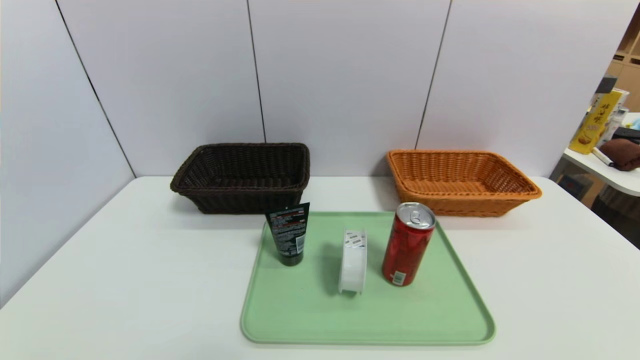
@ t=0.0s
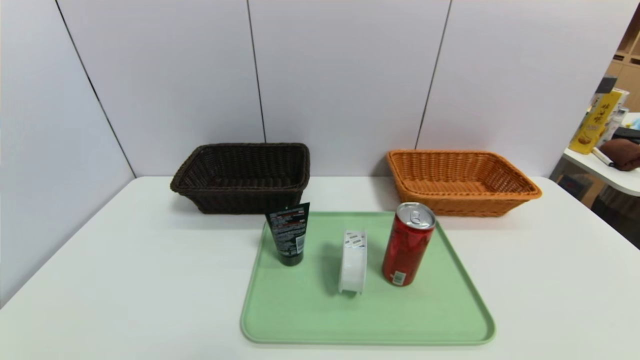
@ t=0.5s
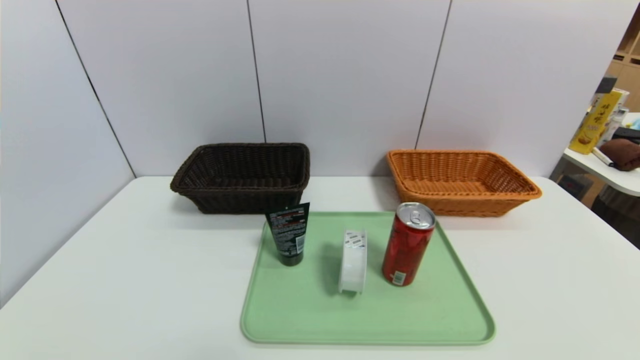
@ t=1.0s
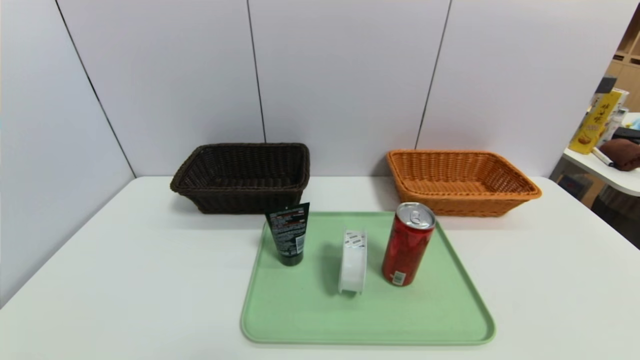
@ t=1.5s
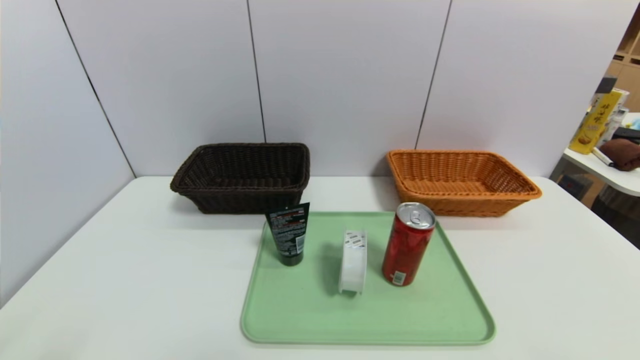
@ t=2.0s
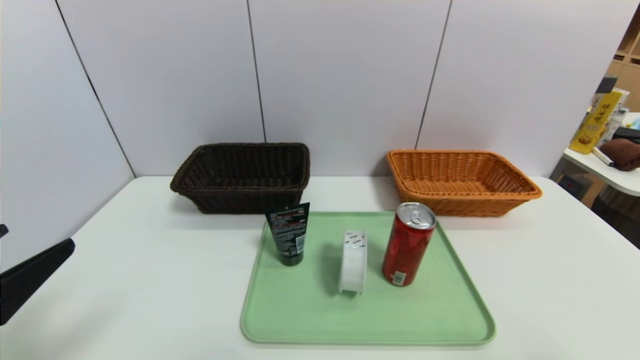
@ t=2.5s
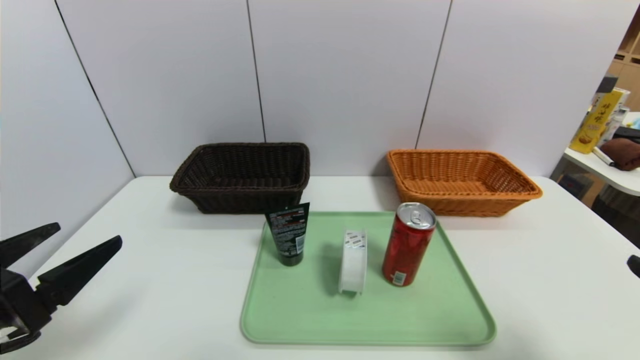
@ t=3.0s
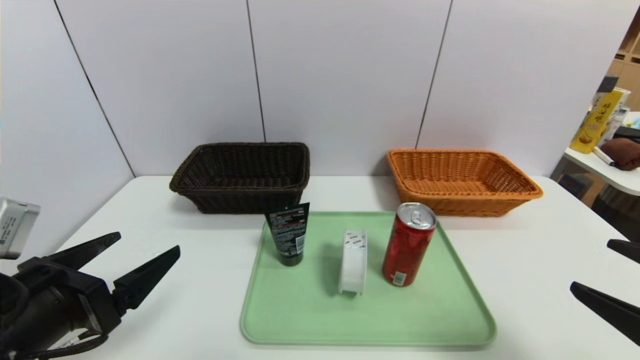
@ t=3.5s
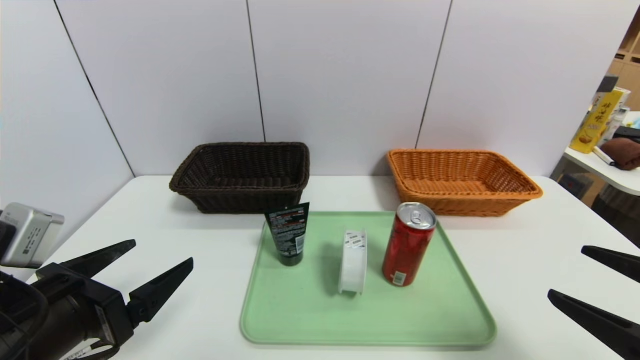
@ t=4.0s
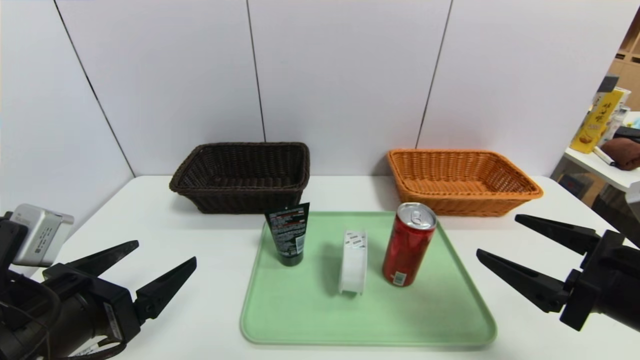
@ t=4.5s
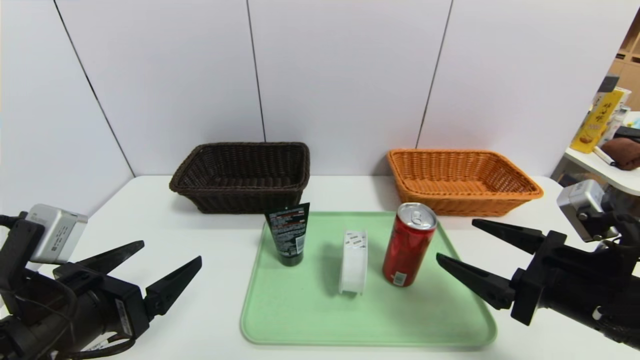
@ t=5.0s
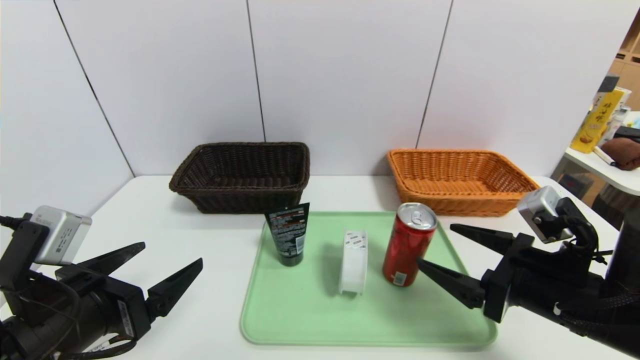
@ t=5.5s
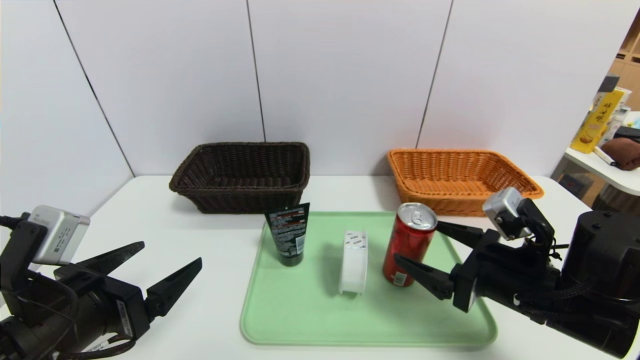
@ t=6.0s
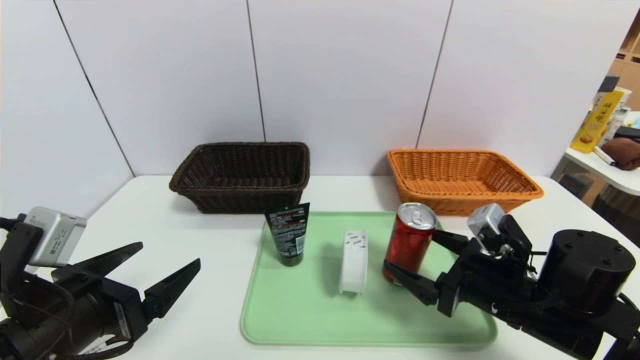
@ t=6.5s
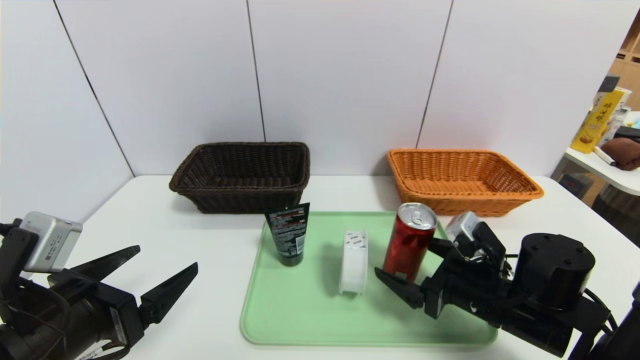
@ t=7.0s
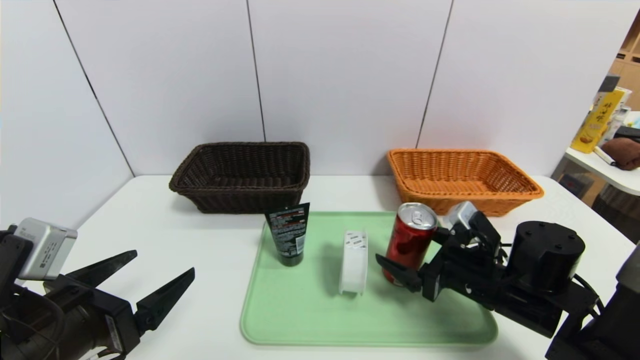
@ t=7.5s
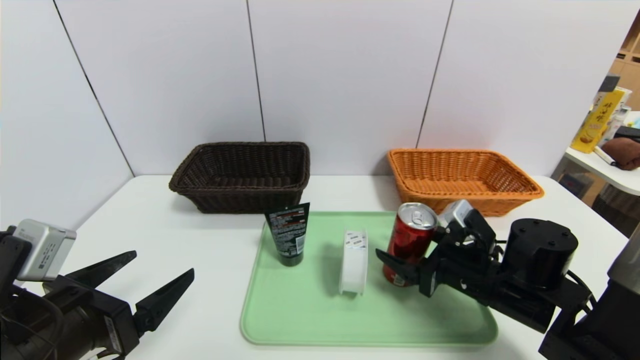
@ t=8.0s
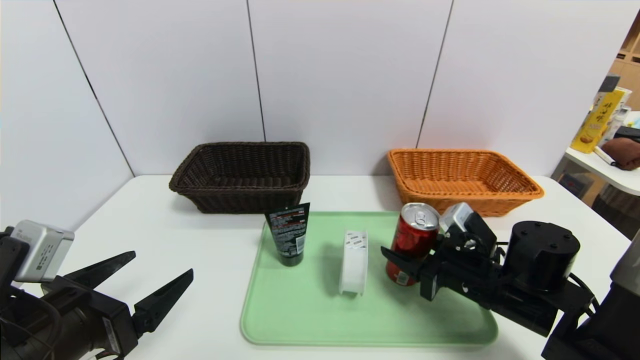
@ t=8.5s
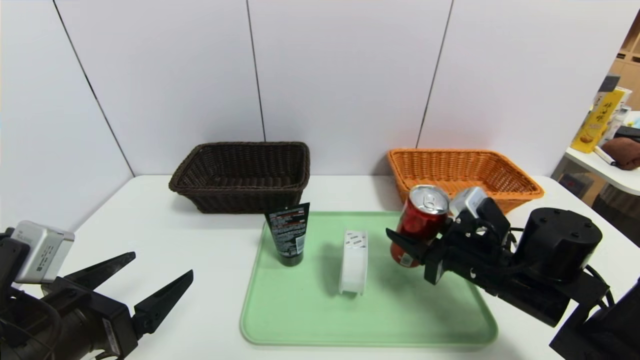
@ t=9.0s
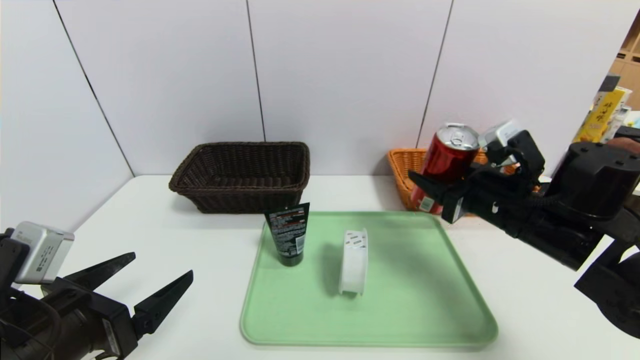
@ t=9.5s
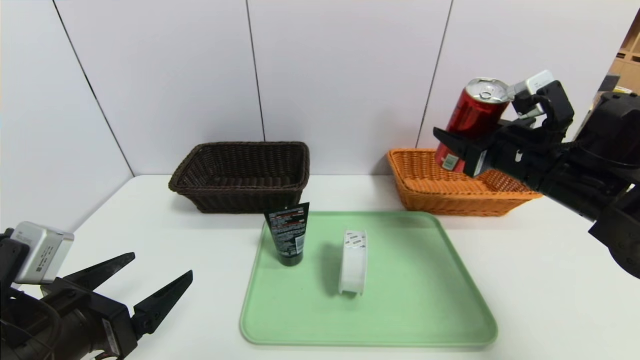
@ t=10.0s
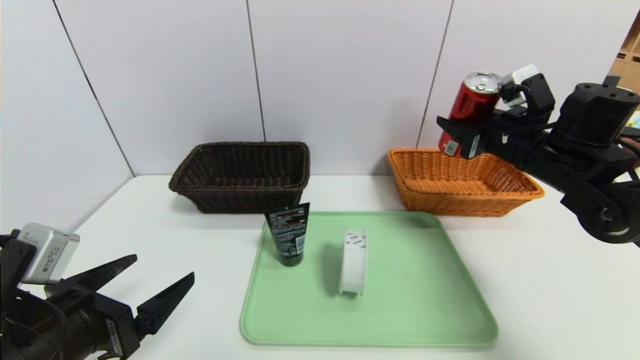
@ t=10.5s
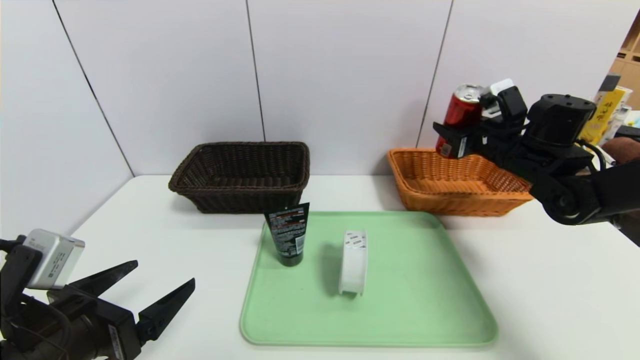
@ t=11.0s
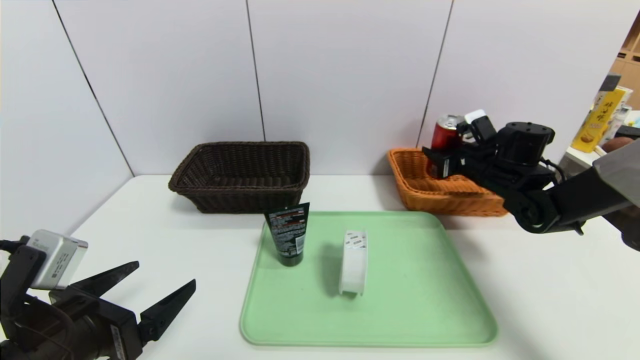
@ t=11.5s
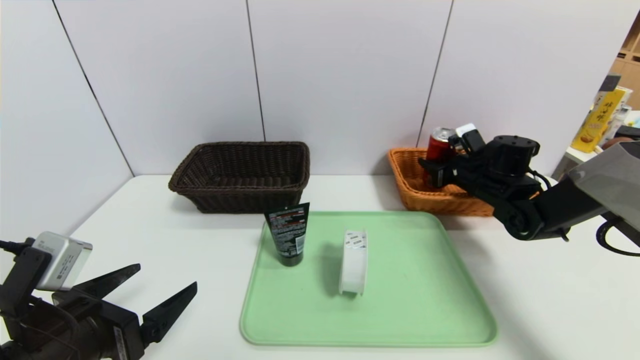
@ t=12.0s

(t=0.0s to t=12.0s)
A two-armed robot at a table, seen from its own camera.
Task of the whole recording: place the food in the right basket with the right gripper, and place the non food items in the left basket with the left gripper.
t=2.0s - t=4.0s: The right gripper is displaced forward by roughly 10 cm; the left gripper goes about 15 cm forward and to the right.
t=4.0s - t=6.0s: The right gripper goes about 15 cm forward, to the left and downward.
t=6.0s - t=8.0s: The right gripper shifts roughly 5 cm forward.
t=8.0s - t=10.0s: The right gripper moves upward, approximately 15 cm, and closes.
t=10.0s - t=12.0s: The right gripper goes some 20 cm forward and downward.

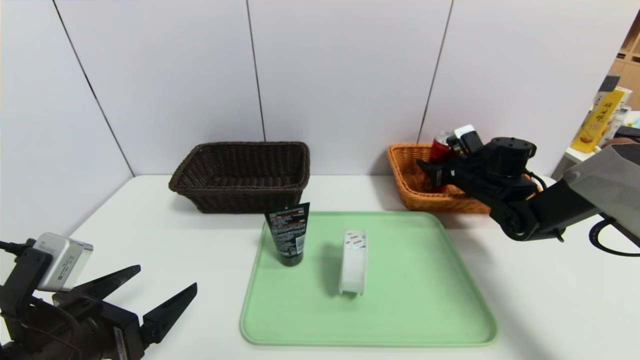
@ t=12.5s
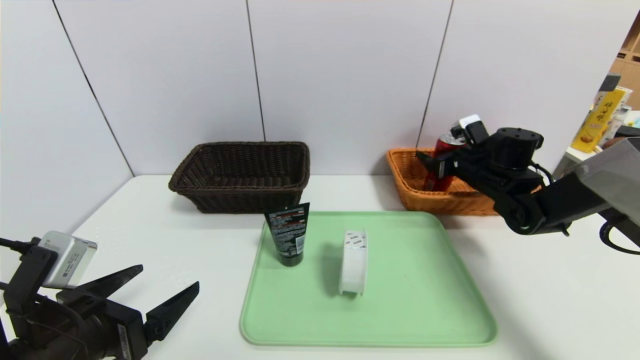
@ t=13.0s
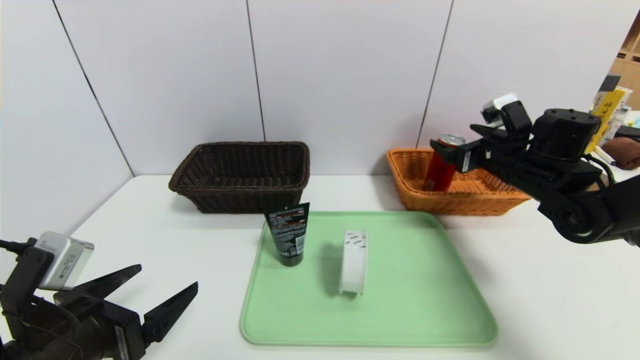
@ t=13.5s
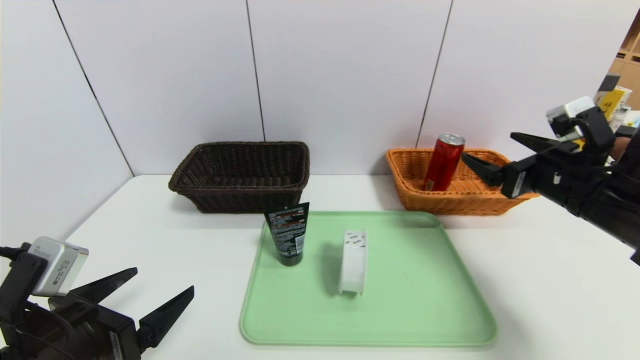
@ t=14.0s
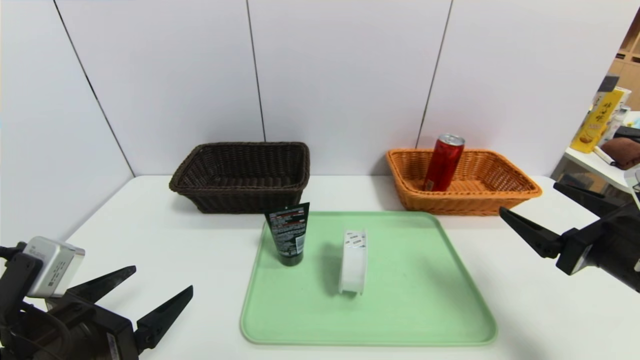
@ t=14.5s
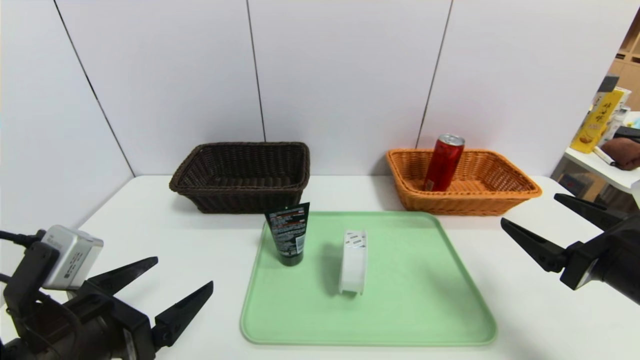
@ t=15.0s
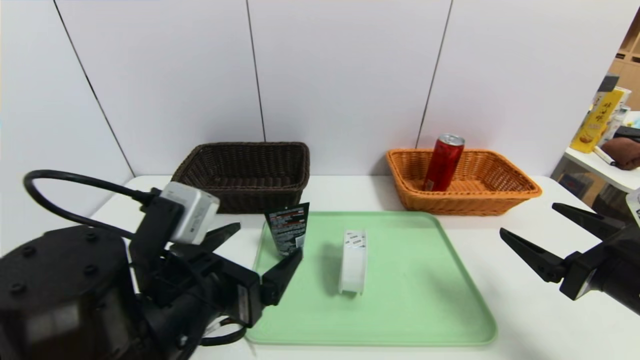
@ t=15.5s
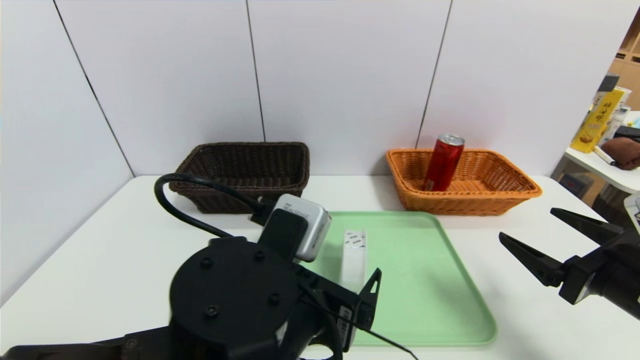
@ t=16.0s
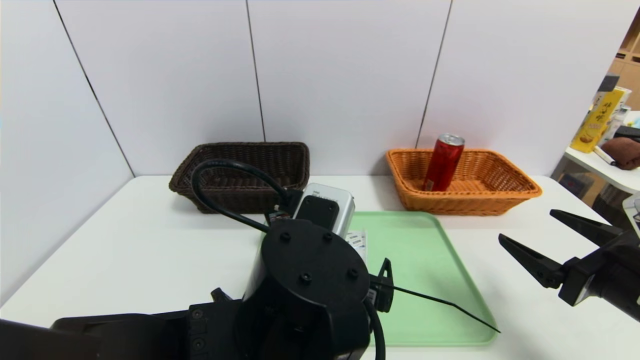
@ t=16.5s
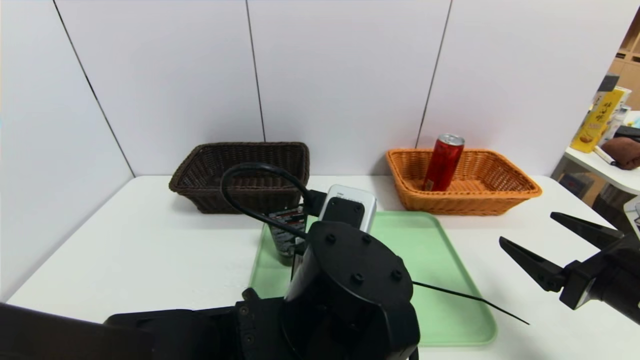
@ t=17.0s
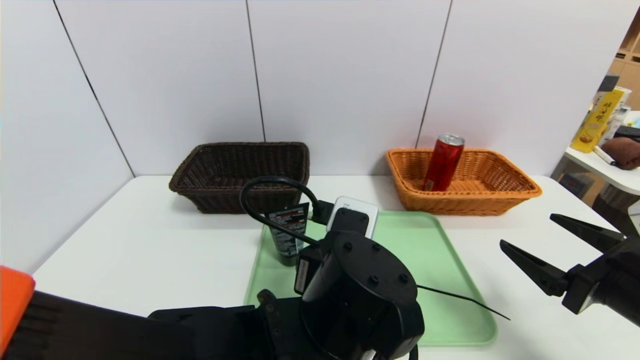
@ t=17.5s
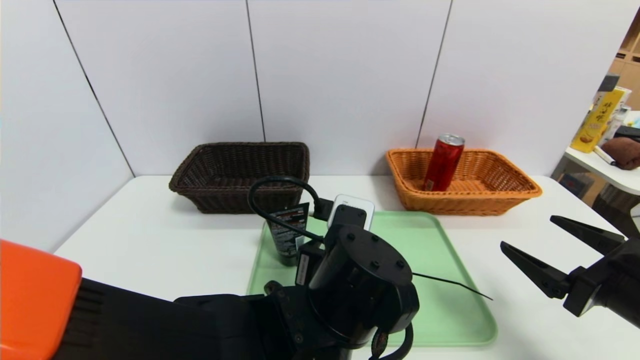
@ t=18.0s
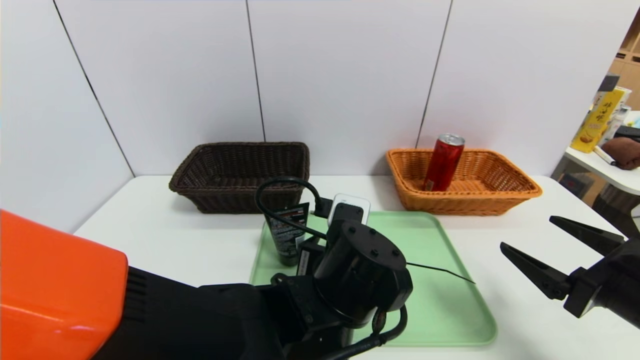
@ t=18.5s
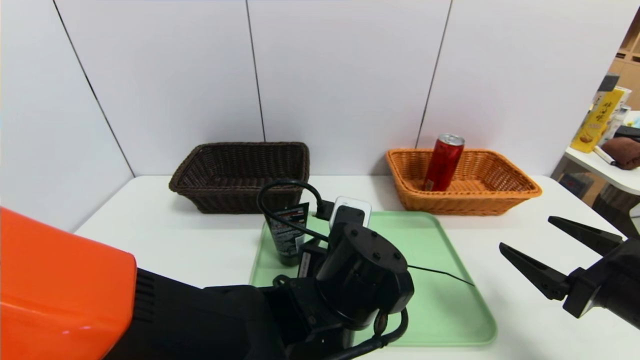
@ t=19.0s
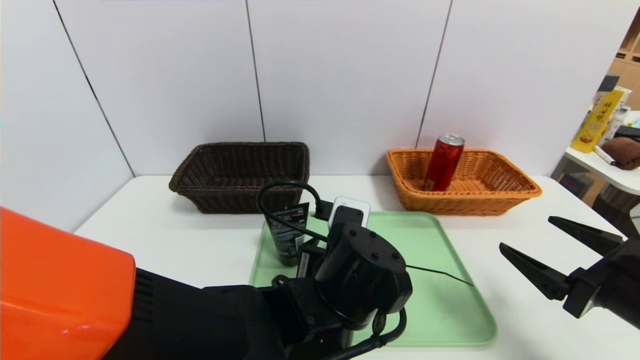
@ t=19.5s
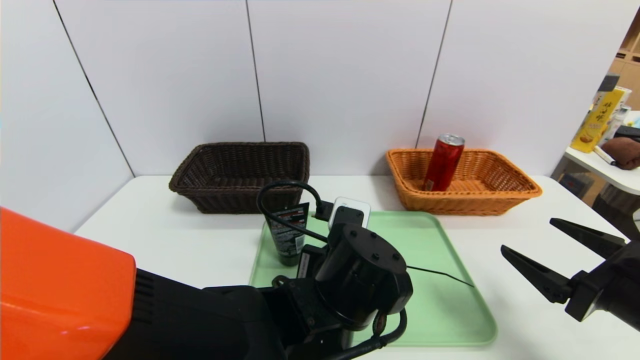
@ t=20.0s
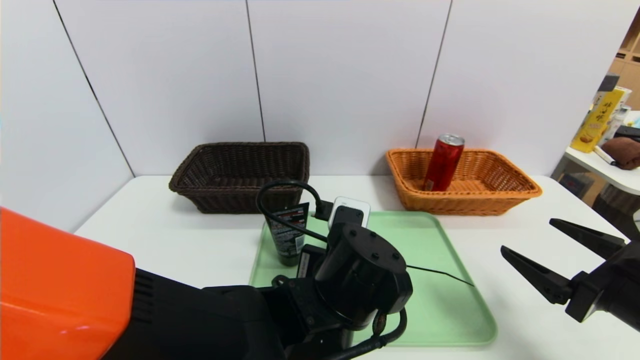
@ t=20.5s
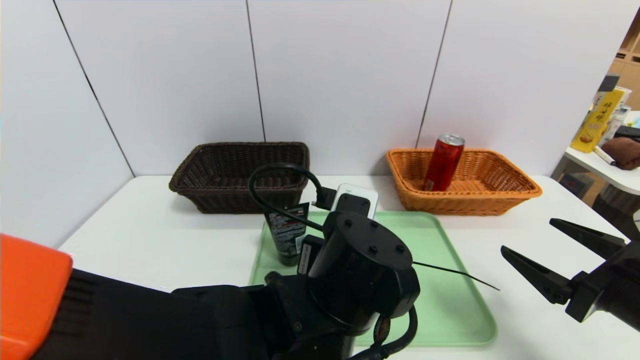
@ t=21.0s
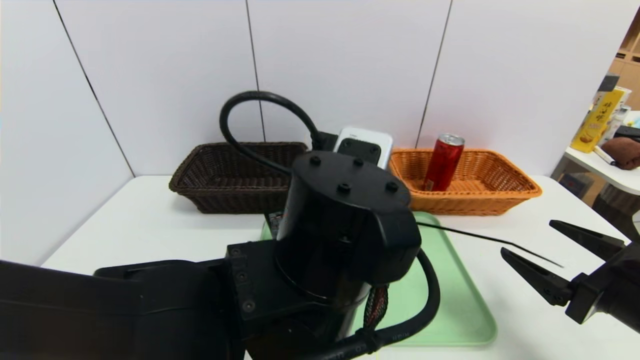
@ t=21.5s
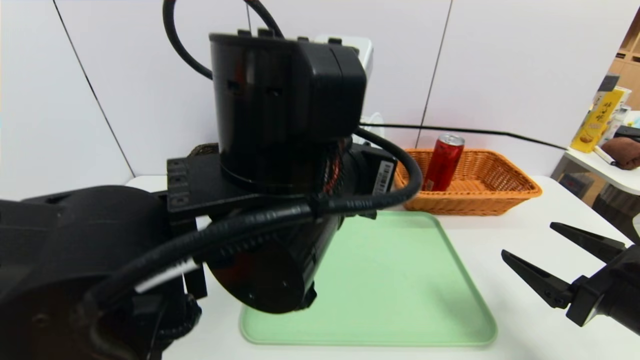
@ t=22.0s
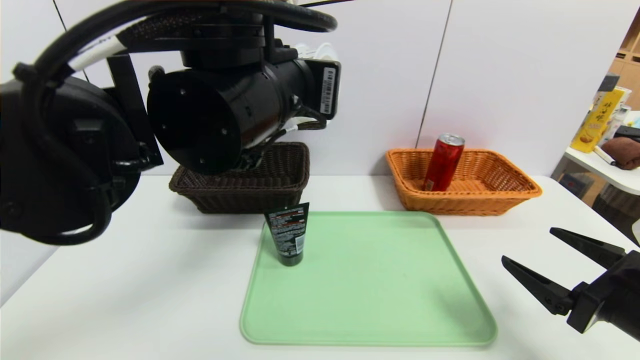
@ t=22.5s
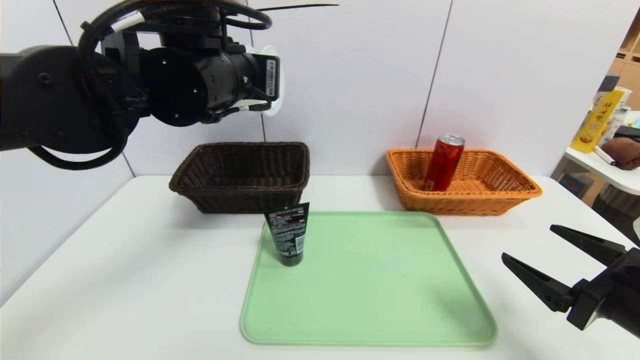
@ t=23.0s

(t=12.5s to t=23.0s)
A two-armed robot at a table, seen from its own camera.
Task of the whole recording: place the food in the right basket with the right gripper, and place the non food items in the left basket with the left gripper.
t=12.5s - t=14.5s: The right gripper goes some 25 cm backward, and opens.
t=14.5s - t=16.5s: The left gripper heads to the right, covering about 20 cm.
t=16.5s - t=19.0s: The left gripper ends up about 10 cm from where it was.
t=19.0s - t=21.0s: The left gripper closes its fingers.
t=21.0s - t=23.0s: The left gripper travels upward, to the left and forward by about 25 cm.
